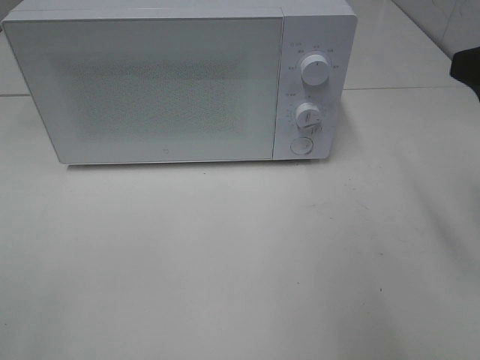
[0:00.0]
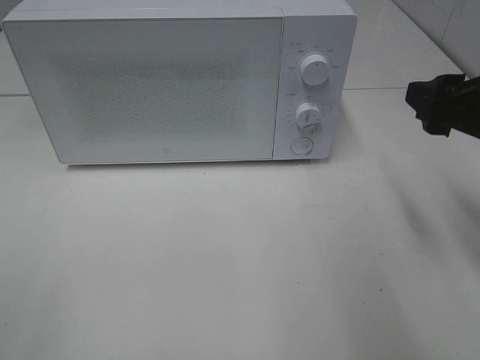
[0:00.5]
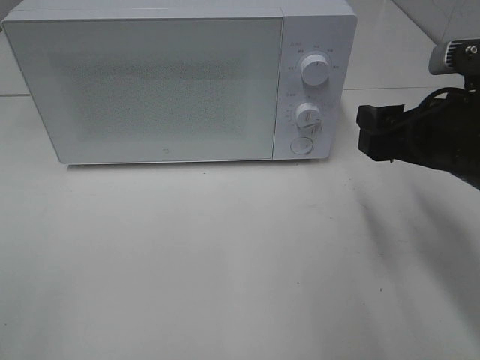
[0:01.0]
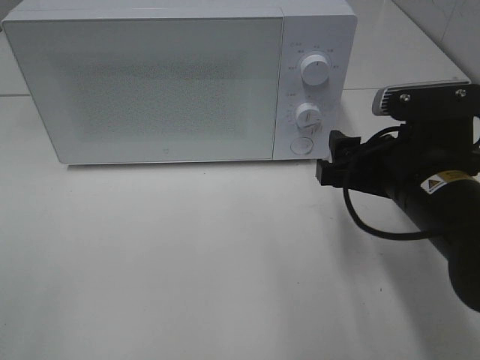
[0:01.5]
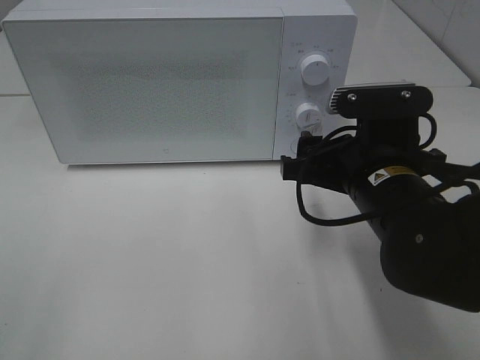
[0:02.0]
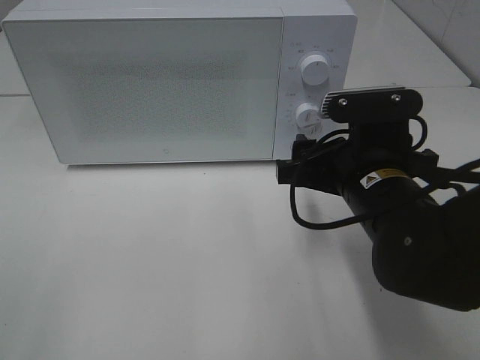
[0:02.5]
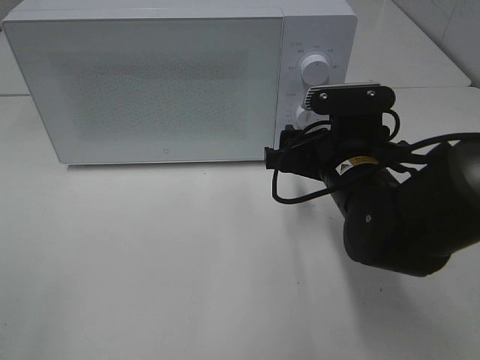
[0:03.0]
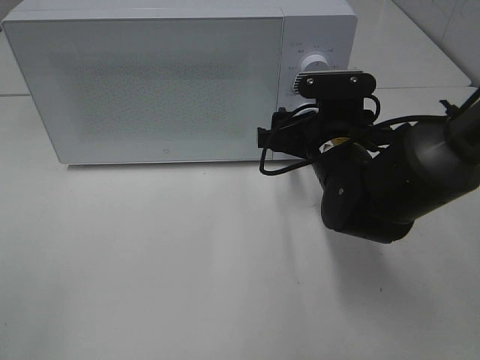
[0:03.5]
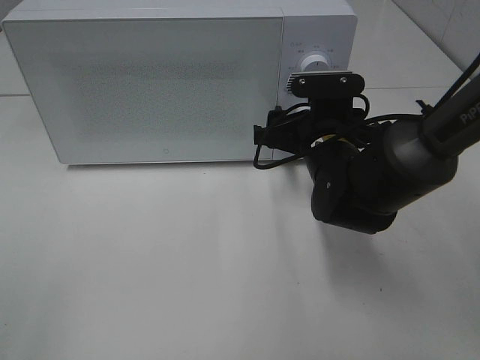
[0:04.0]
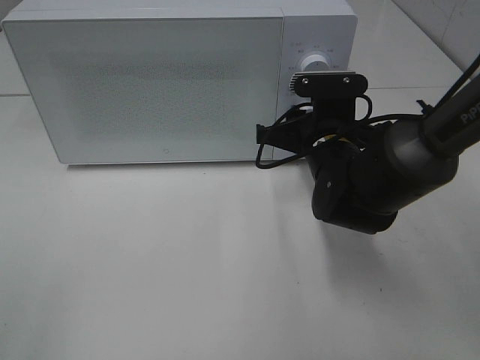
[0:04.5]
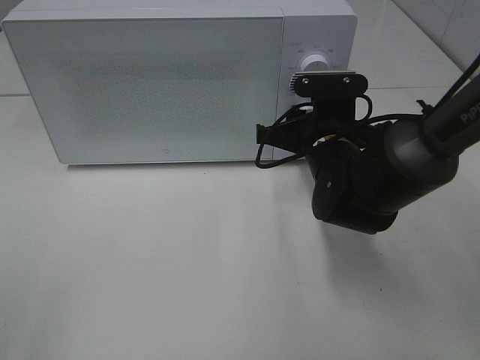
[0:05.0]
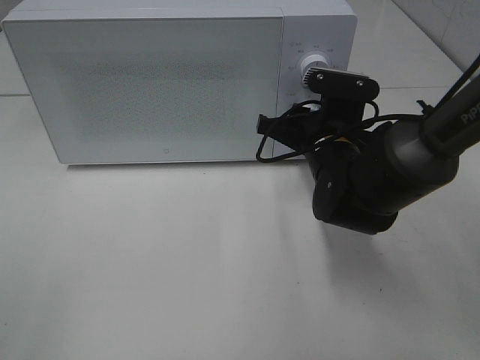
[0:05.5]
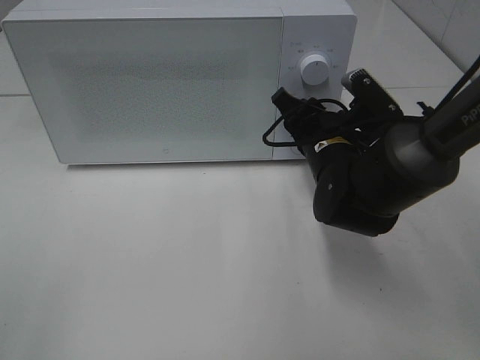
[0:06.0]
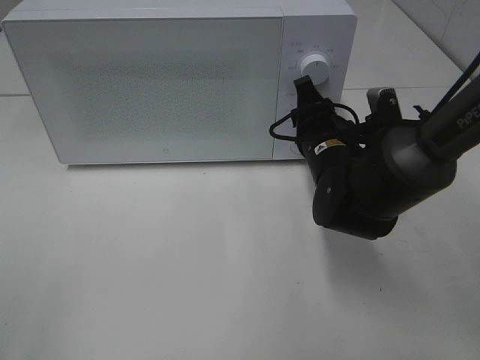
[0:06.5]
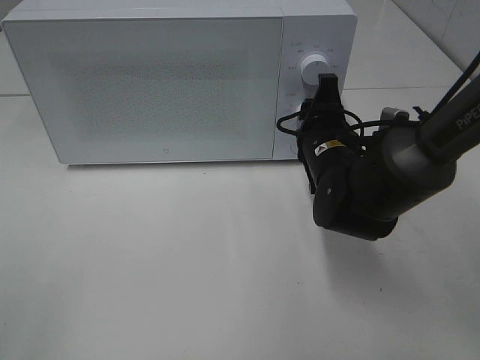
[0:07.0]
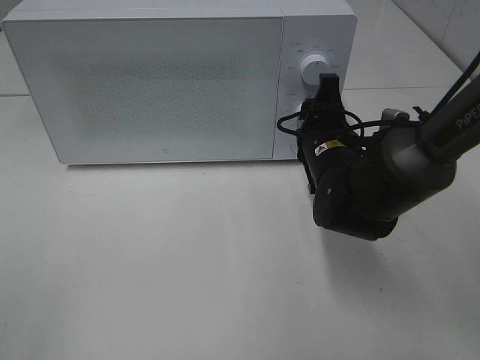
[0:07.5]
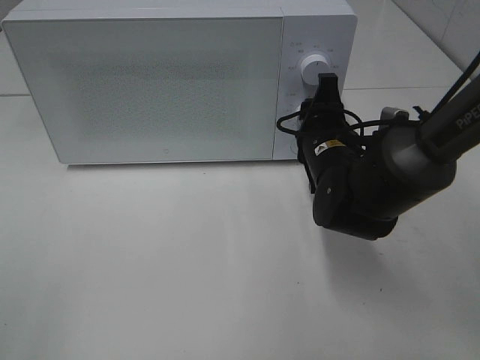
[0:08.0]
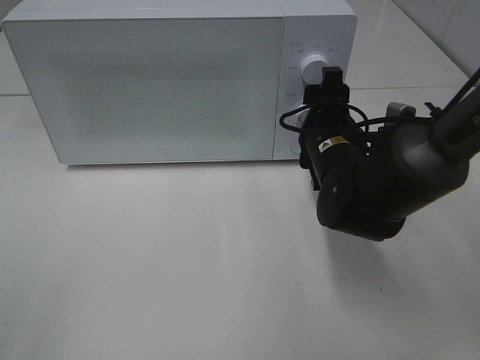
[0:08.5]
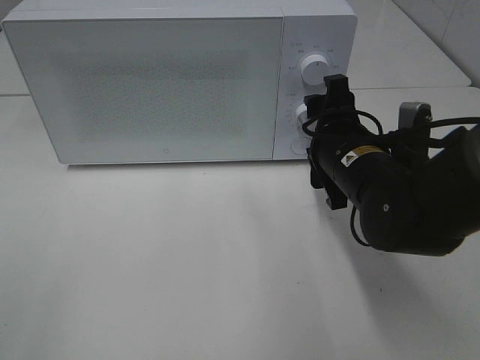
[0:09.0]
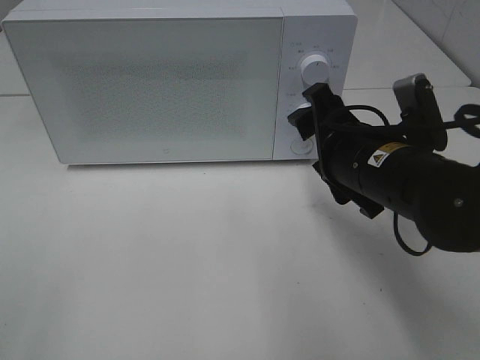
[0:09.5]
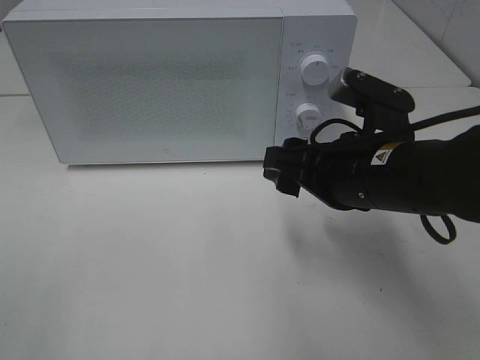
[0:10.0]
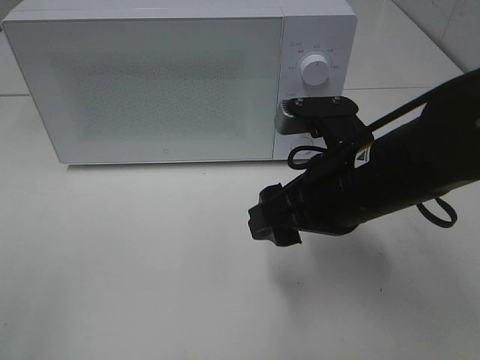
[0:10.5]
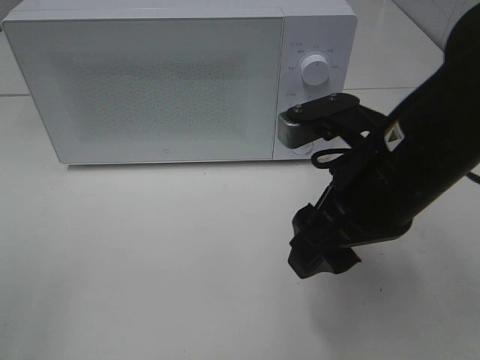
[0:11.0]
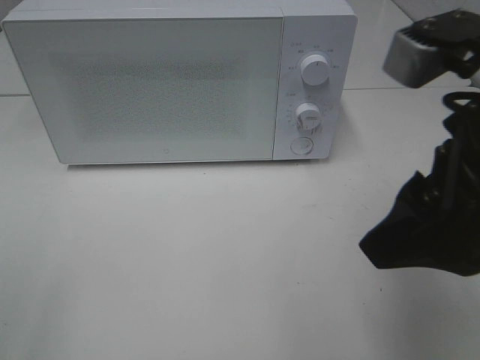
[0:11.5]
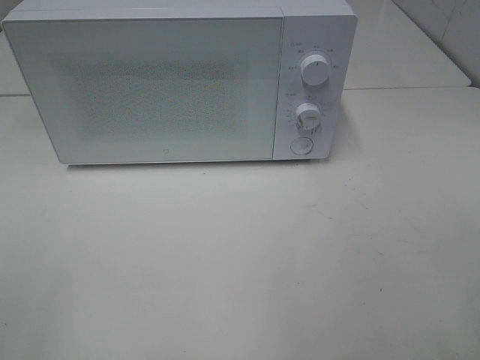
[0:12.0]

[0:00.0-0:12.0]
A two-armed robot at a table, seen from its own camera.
Task of the whole recording: Heat Sandwich.
Step, 0:00.0 to 0:09.0: Right hand: twist timer button.
0:00.0 to 0:02.0: The right gripper shifts roughly 20 cm downward and to the left.
0:02.0 to 0:04.0: The right gripper is displaced forward by about 10 cm.
0:04.0 to 0:06.0: The right gripper closes its fingers.
0:08.0 to 0:10.0: The right gripper goes approximately 10 cm backward and upward.
0:10.0 to 0:12.0: The right gripper goes some 25 cm backward, upward and to the right.

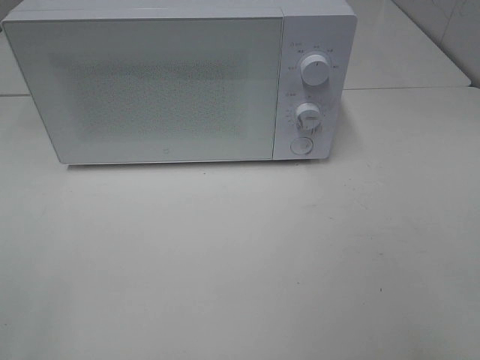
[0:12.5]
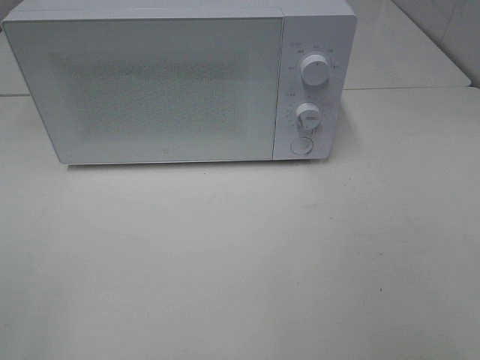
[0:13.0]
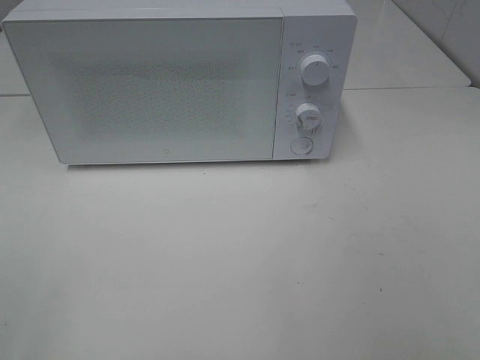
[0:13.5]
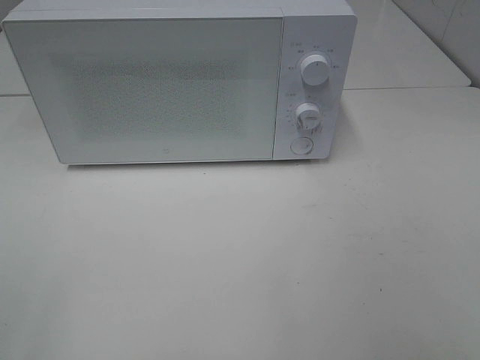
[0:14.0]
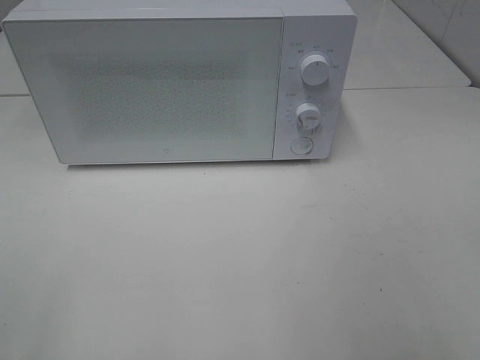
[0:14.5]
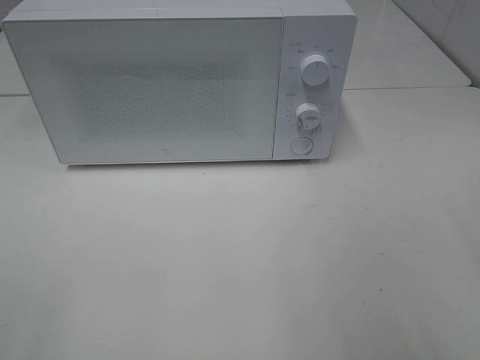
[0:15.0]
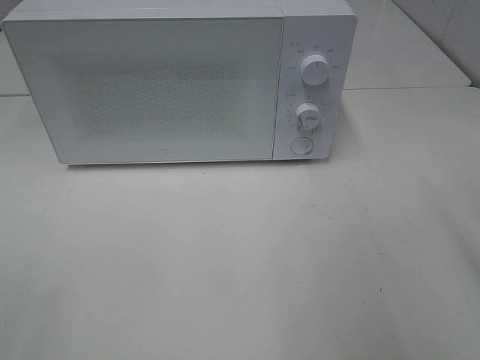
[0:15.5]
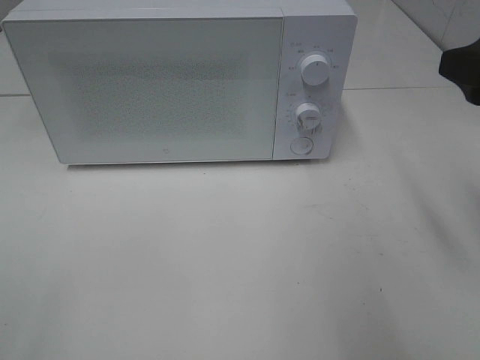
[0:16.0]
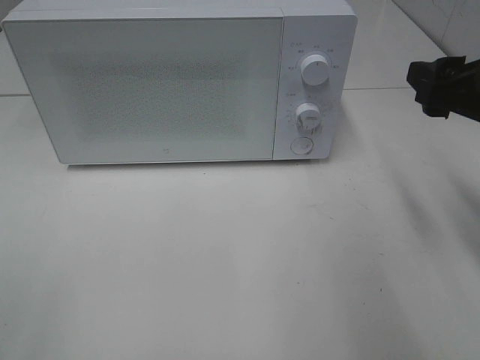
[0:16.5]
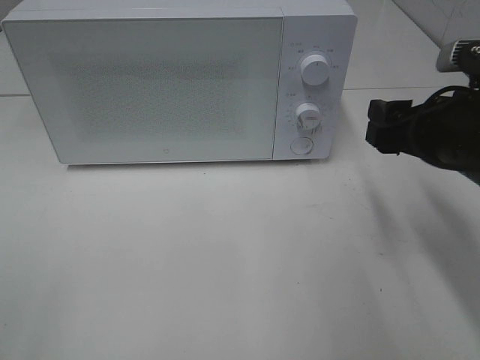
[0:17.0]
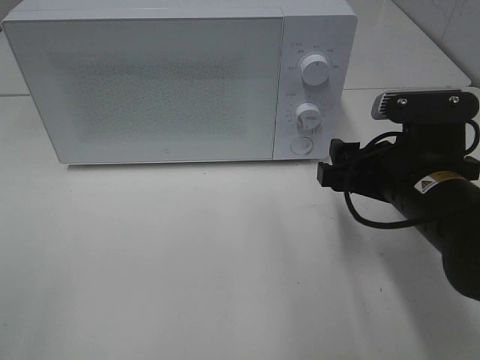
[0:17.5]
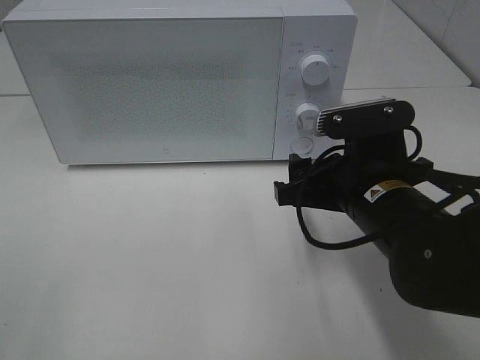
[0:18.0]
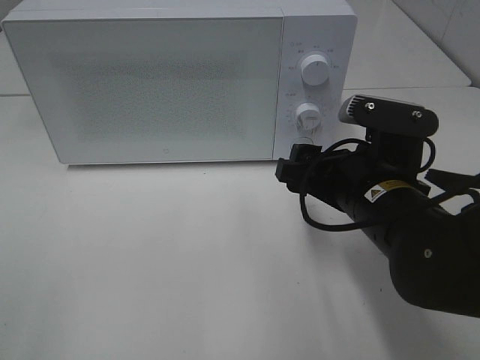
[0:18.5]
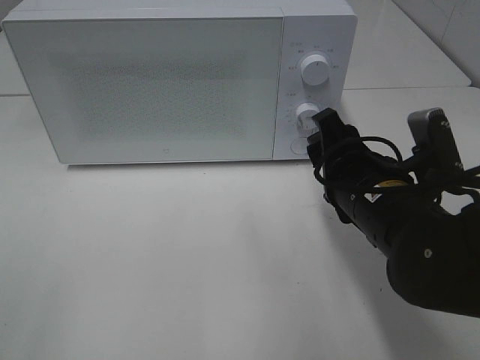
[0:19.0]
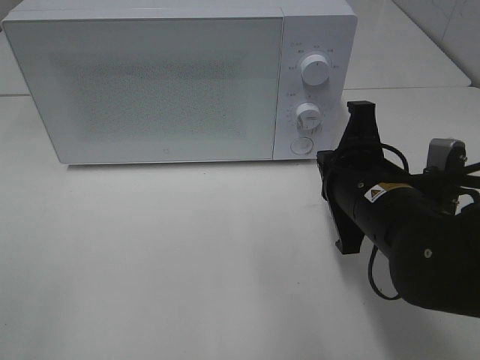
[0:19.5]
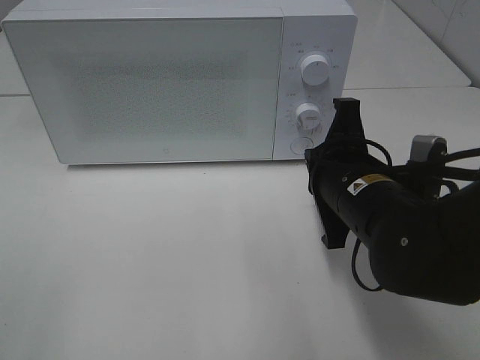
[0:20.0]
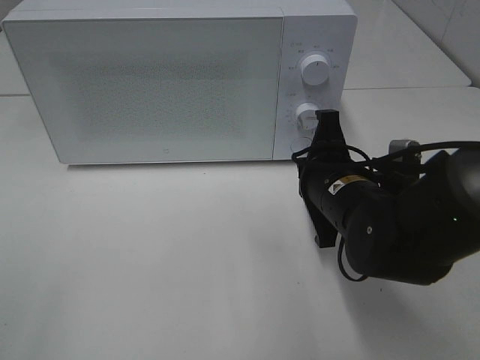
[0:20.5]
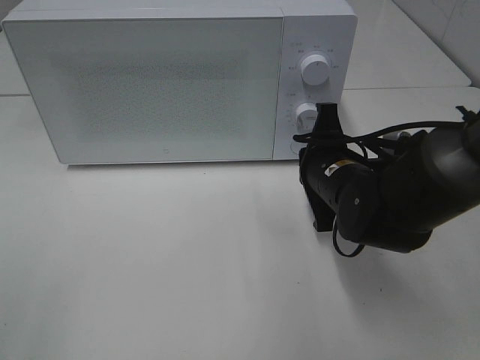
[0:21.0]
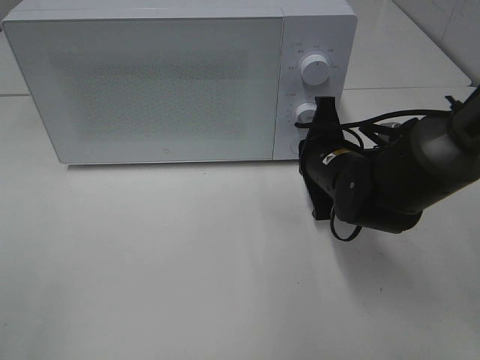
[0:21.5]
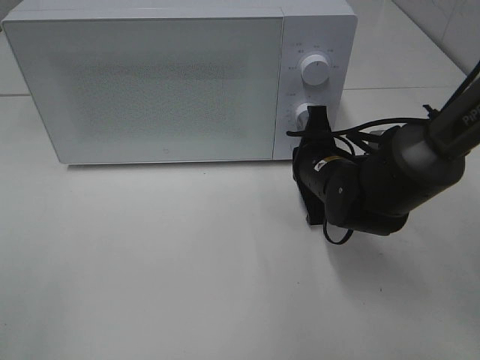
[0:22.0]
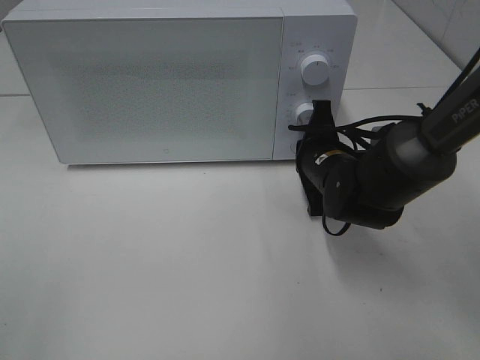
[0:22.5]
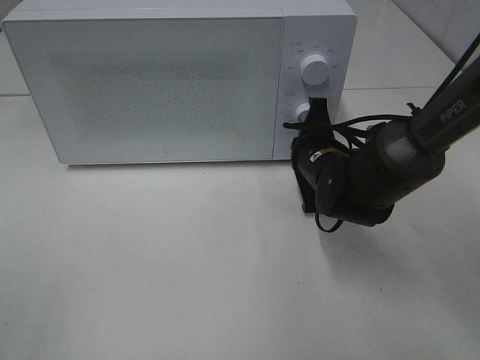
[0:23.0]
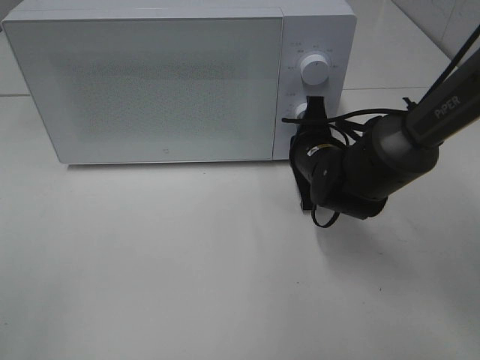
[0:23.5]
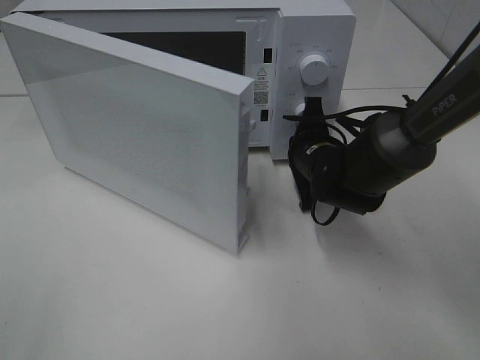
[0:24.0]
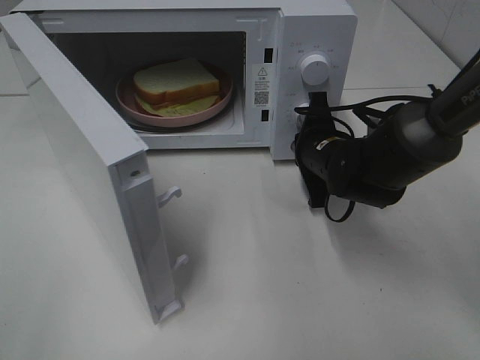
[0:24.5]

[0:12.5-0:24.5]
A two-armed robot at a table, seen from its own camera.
Task of the whole recording: Heat Sandwich.
0:14.5 to 0:16.5: The right gripper travels forward by roughly 20 cm.
0:16.5 to 0:18.5: The right gripper moves to the left and downward, approximately 15 cm.
0:18.5 to 0:20.5: The right gripper closes.
0:20.5 to 0:22.5: The right gripper travels forward by roughly 10 cm.

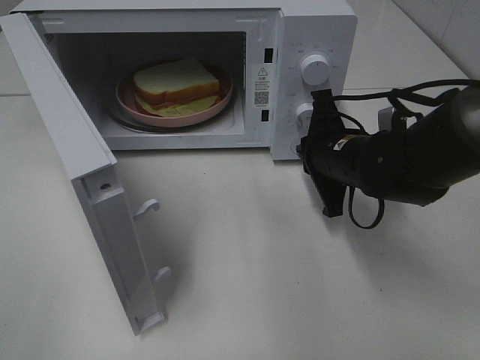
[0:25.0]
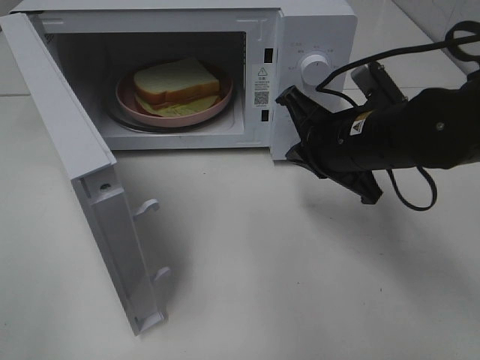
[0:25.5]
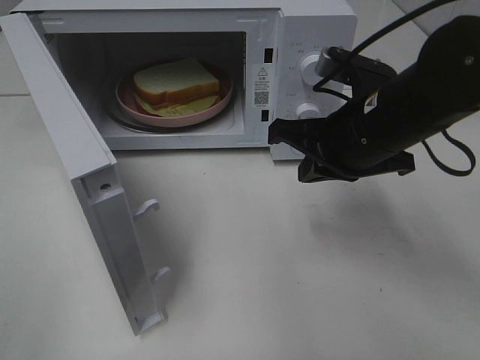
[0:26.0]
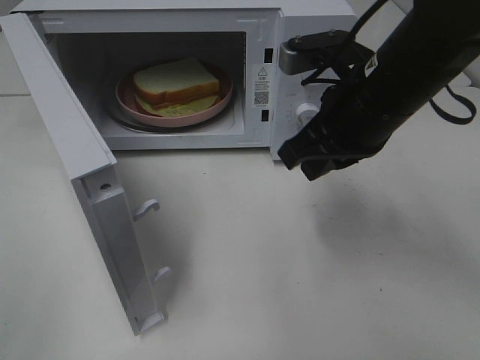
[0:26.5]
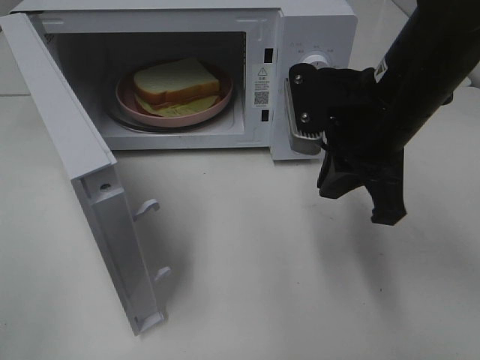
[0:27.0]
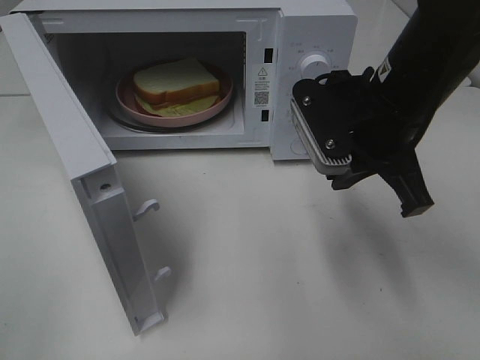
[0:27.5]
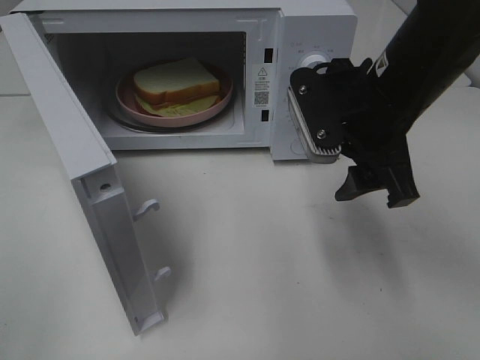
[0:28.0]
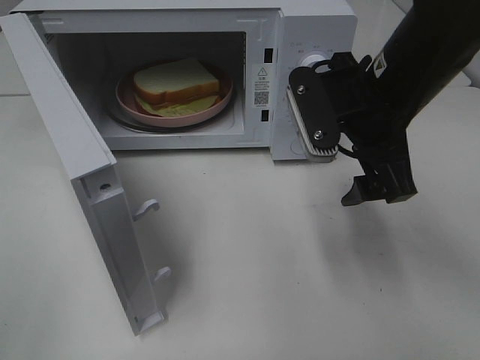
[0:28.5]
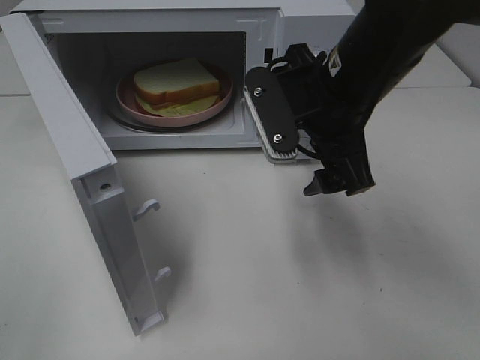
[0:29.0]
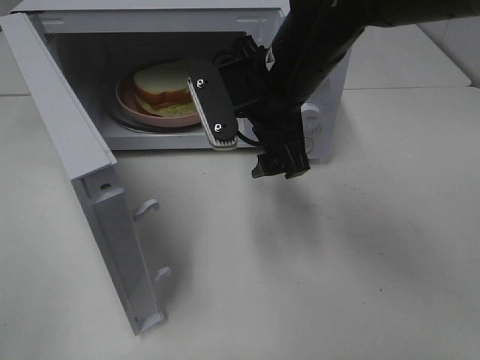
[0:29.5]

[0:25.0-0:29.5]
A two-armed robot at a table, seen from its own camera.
Task of the whole recording: Heat Sandwich.
0:25.0 to 0:27.0: The right gripper moves upward and backward, roughly 10 cm.
0:27.0 to 0:29.5: The right gripper moves to the left, roughly 10 cm, and opens.
